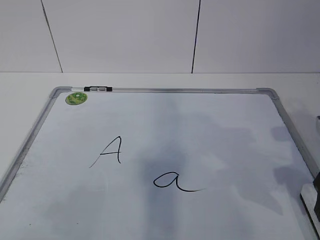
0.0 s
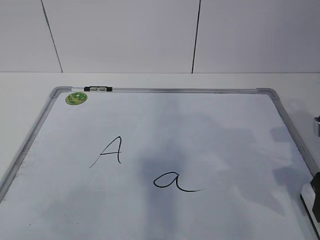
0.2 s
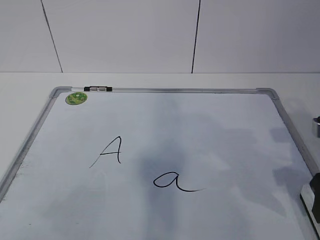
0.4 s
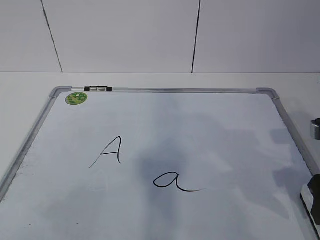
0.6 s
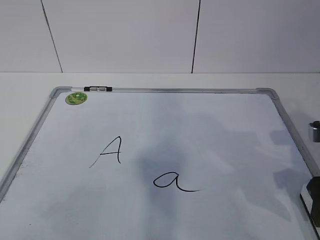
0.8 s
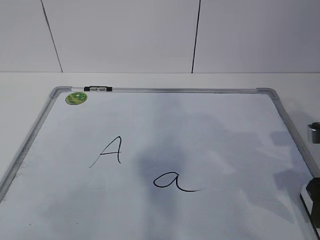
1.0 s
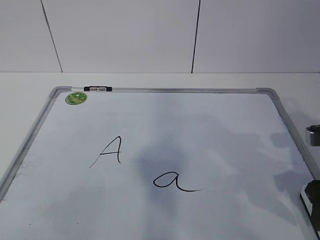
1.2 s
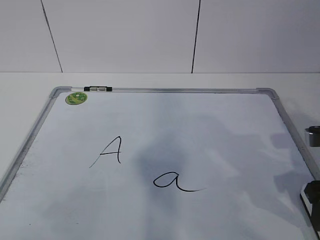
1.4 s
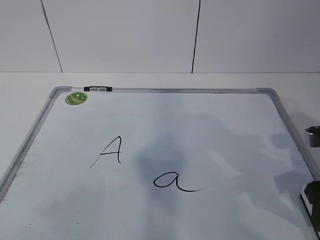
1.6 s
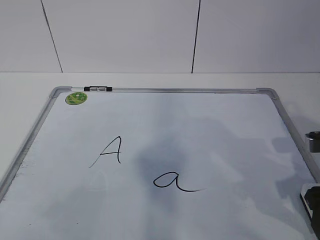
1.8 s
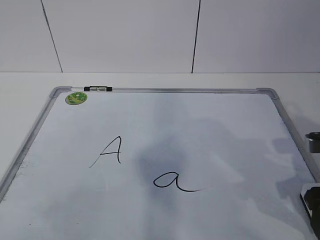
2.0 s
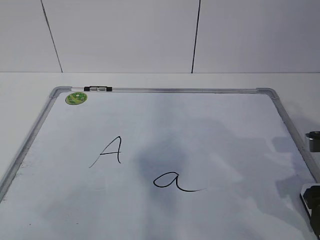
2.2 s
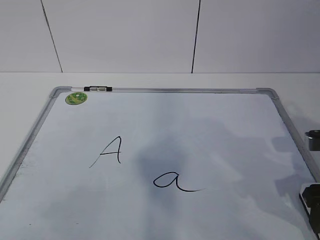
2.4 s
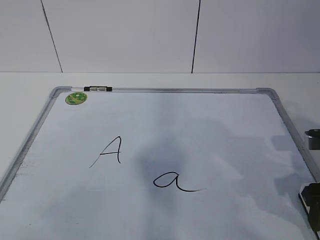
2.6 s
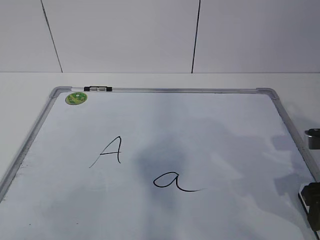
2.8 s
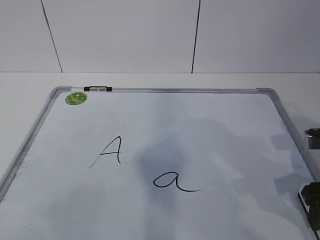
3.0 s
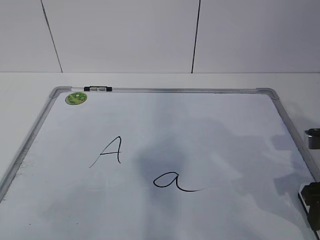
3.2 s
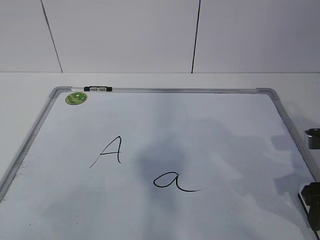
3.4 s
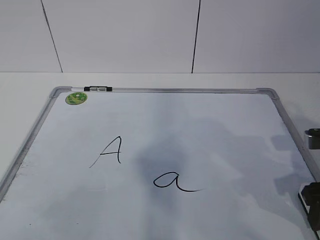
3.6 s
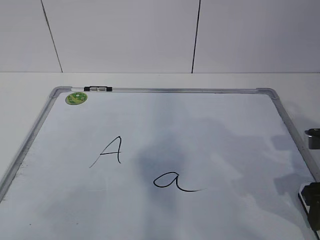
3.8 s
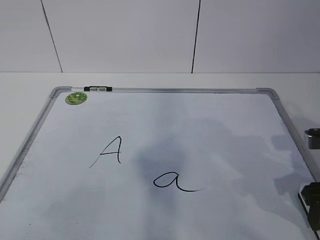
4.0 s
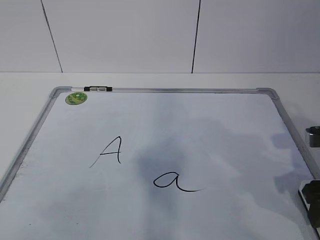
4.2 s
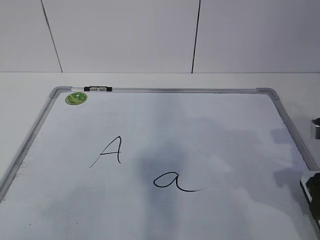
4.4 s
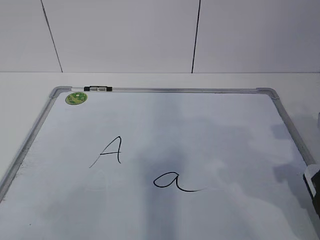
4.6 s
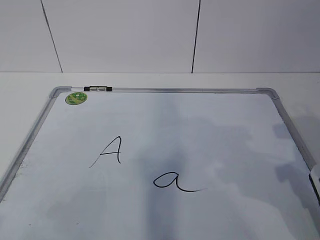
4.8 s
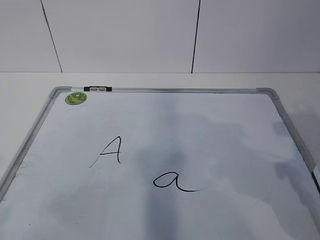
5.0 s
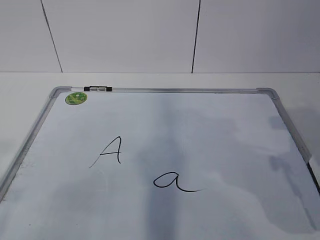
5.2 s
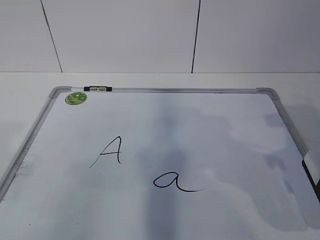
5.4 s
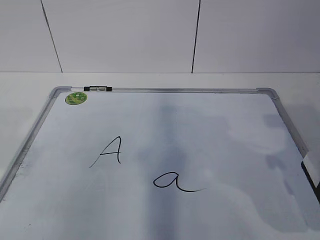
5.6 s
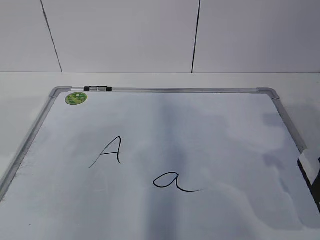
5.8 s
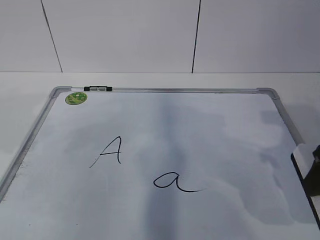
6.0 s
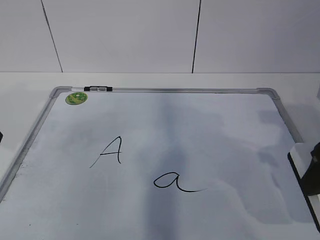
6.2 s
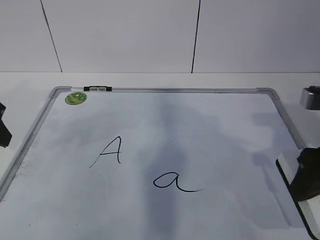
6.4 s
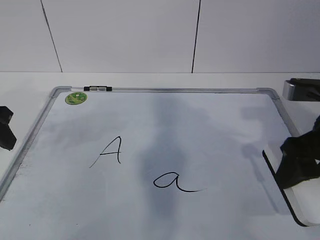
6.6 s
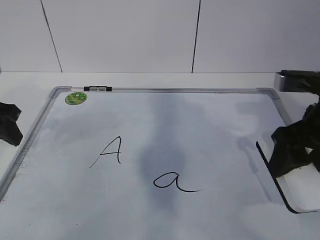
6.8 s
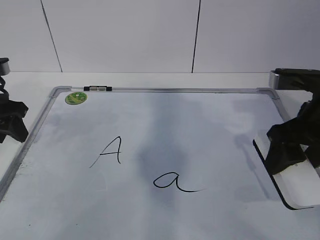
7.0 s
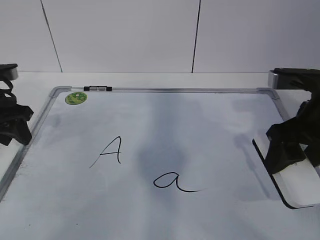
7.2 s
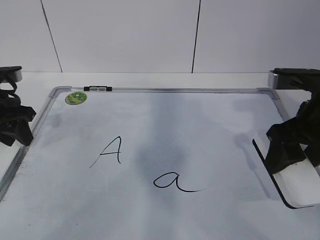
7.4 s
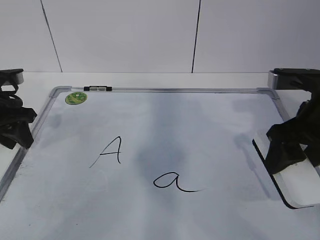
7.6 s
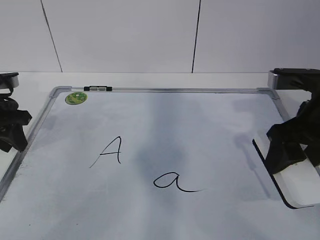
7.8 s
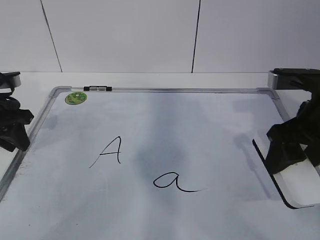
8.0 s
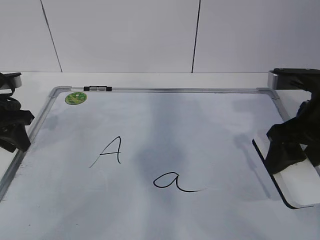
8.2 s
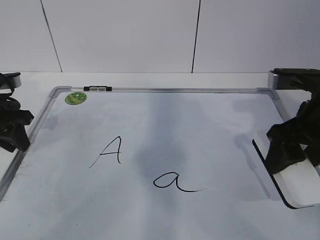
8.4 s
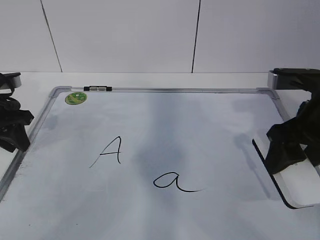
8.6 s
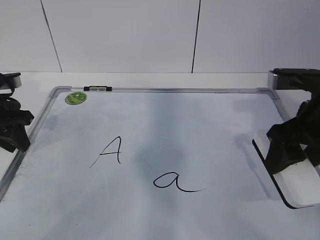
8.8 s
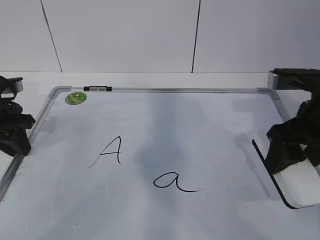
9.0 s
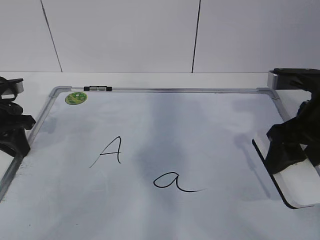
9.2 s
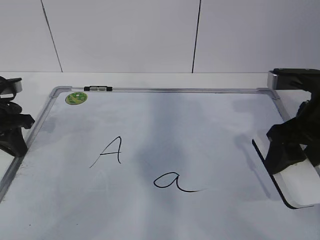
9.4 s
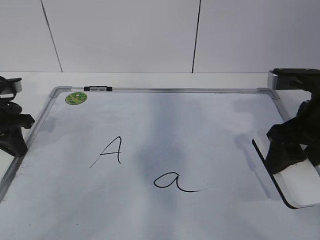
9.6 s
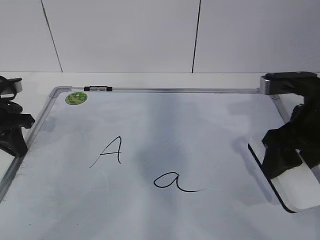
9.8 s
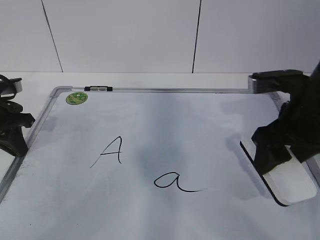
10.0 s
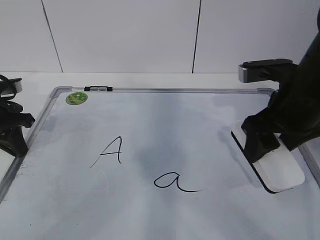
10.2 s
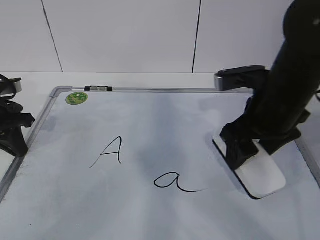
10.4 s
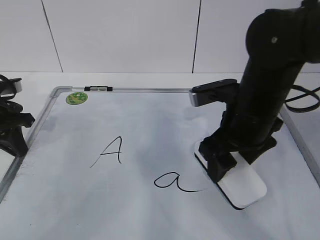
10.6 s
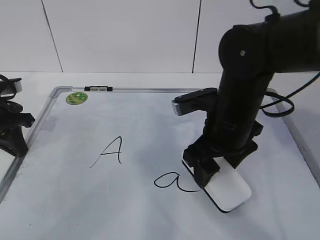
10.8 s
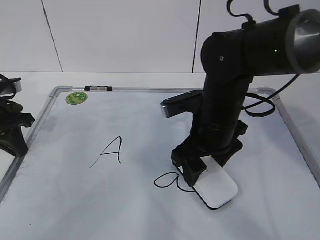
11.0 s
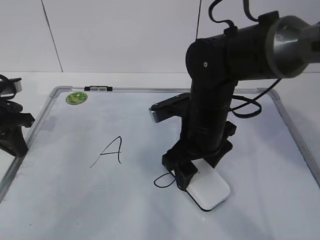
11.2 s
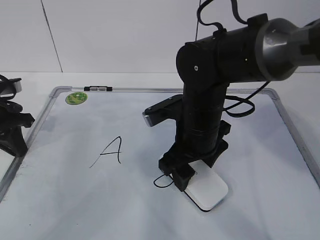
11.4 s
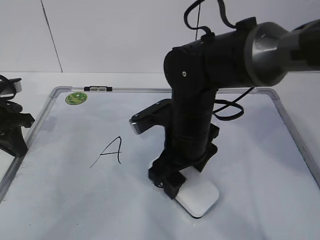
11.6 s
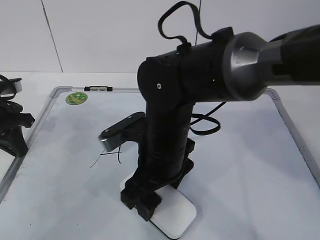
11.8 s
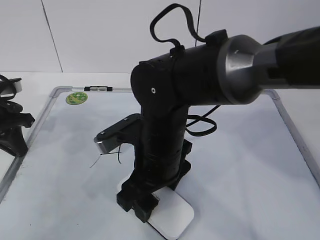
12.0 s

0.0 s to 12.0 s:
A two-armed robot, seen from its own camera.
Task of the whole recording: pick up the eraser on the blackboard and erase the letter "a".
Step, 5.8 to 8.6 s: Erase the letter a with your right hand.
Step, 9.0 to 11.6 s: Put down the eraser with your right hand.
0.0 to 1.6 s: The right gripper closes up.
3.0 to 4.4 s: There are only small adjustments of the grippers.
4.4 to 6.0 s: The right gripper shifts some 5 cm upward.
6.0 to 7.6 s: The right gripper moves forward, some 5 cm, while the left gripper is displaced forward and downward by some 15 cm.
7.6 to 9.0 s: There are only small adjustments of the grippers.
9.0 to 10.4 s: The left gripper closes up. Meanwhile the right gripper is displaced to the left by some 5 cm.
10.4 to 12.0 s: The right gripper travels to the left by about 15 cm.

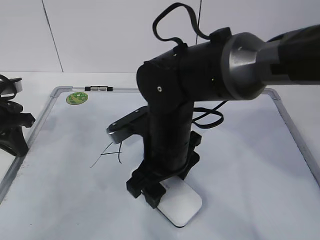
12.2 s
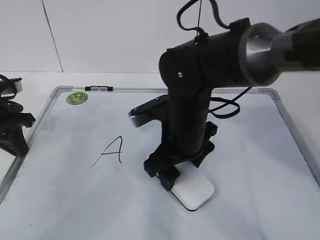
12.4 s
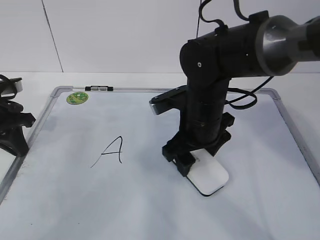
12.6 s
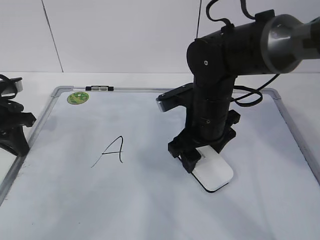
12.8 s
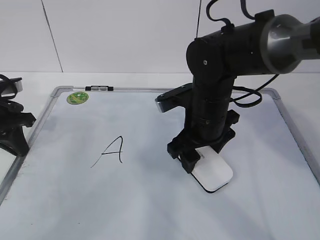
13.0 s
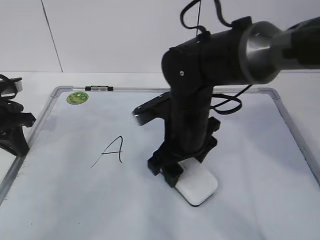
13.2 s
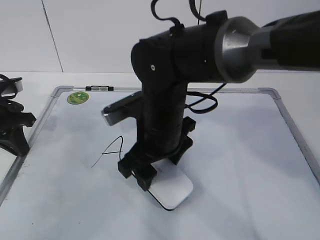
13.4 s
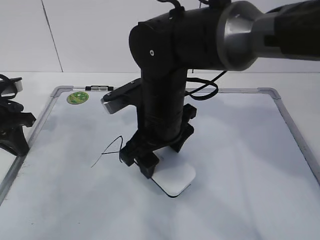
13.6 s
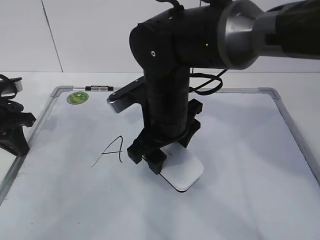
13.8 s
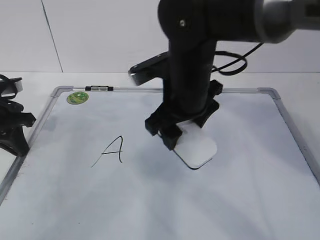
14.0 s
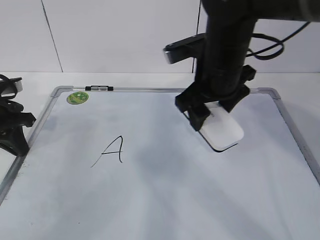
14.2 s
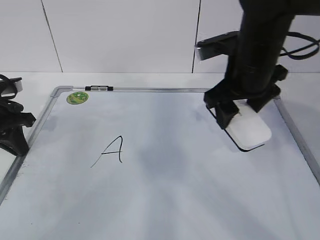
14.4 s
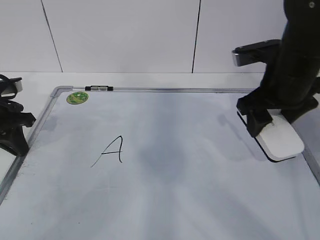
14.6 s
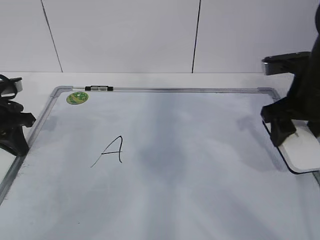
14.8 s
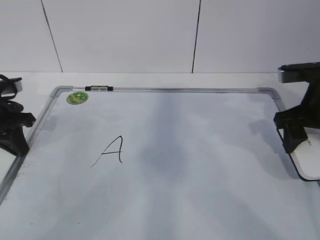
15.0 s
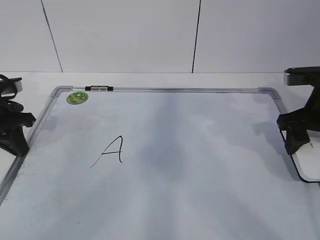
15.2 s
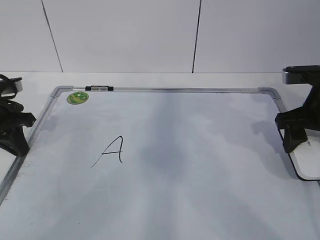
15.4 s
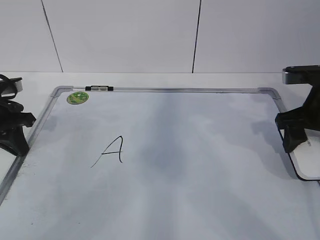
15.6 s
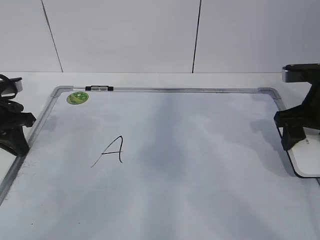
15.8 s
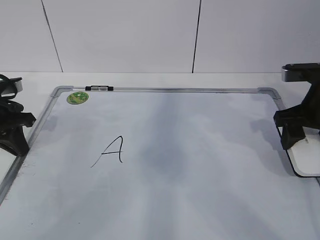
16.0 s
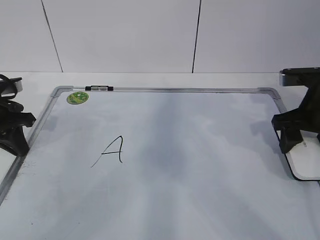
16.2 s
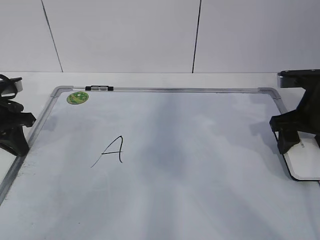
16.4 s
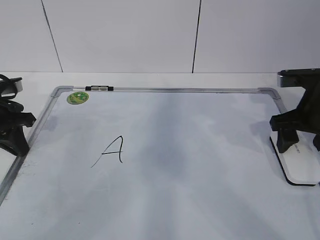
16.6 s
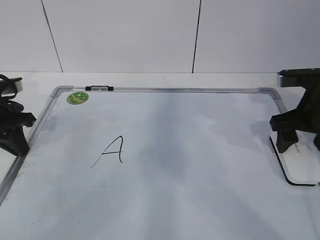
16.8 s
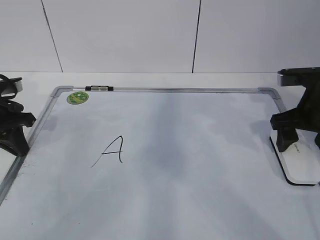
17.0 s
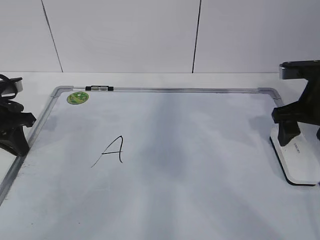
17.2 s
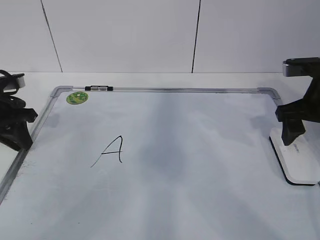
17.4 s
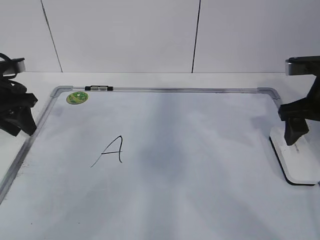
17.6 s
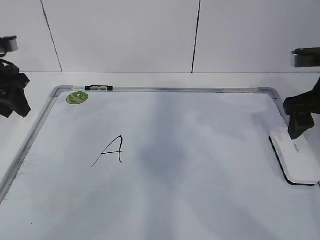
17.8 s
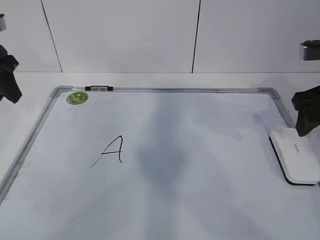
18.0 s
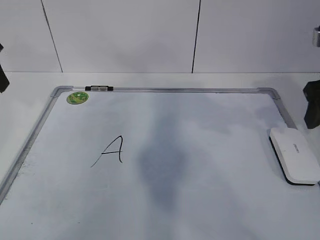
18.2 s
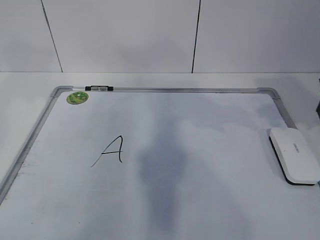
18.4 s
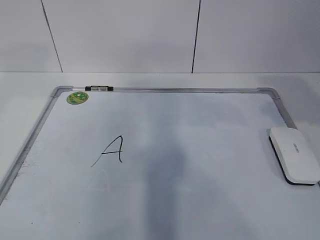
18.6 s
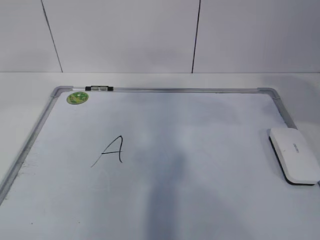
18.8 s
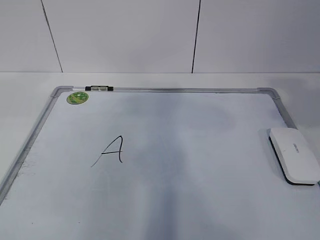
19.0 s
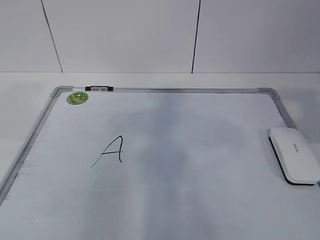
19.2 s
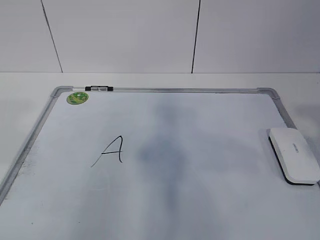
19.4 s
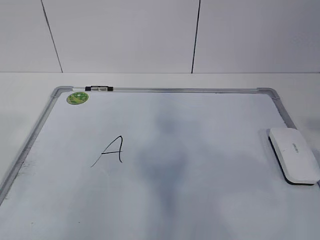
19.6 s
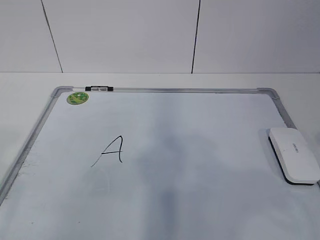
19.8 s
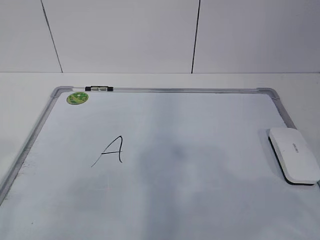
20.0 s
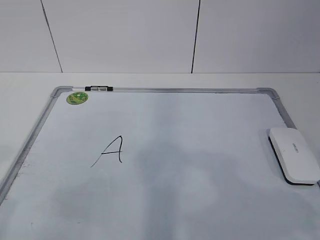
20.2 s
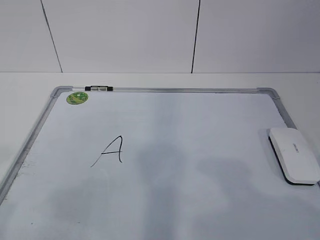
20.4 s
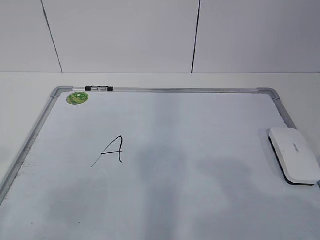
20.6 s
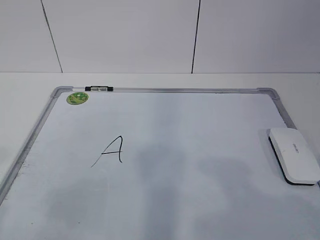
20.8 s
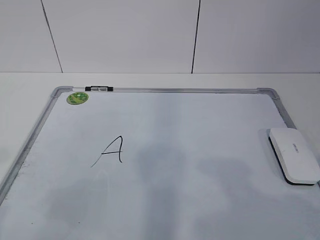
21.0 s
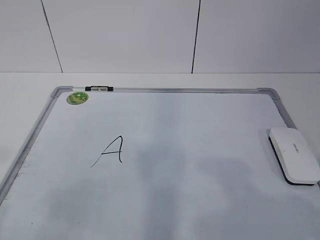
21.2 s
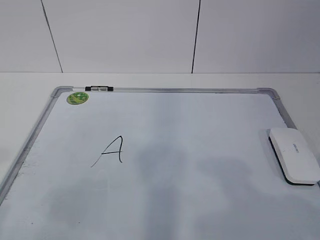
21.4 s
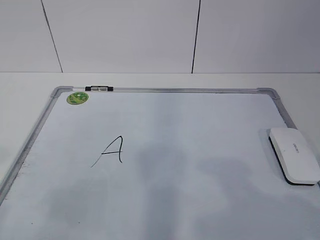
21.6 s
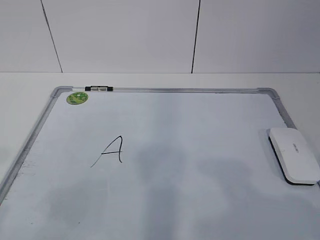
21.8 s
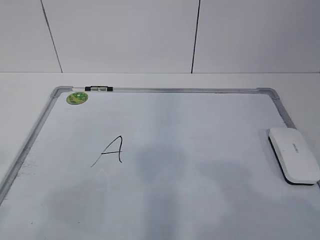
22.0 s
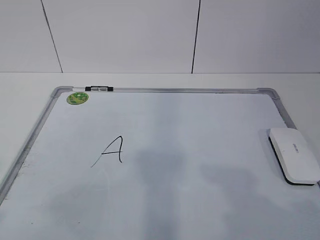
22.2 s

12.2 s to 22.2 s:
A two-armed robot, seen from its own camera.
Task of the whole recording: pick up the eraser on the blackboard and erase the letter "a".
12.2 to 13.6 s: The right gripper reaches approximately 5 cm to the right, then returns.
13.6 to 15.0 s: The right gripper moves to the right, about 25 cm.
15.0 to 16.4 s: The grippers make only small movements.
16.4 to 18.0 s: The left gripper goes about 10 cm upward, and opens its fingers; the right gripper goes roughly 5 cm upward, and opens up.
18.0 to 19.4 s: The right gripper travels backward and upward by roughly 25 cm, and closes its fingers, while the left gripper is displaced backward by about 25 cm.
